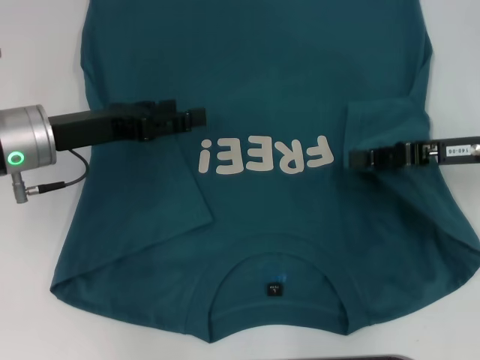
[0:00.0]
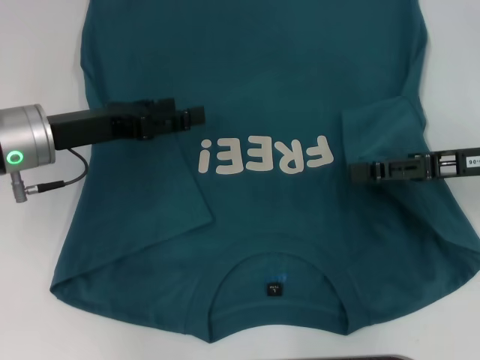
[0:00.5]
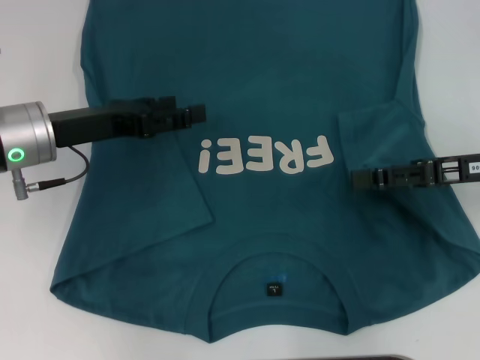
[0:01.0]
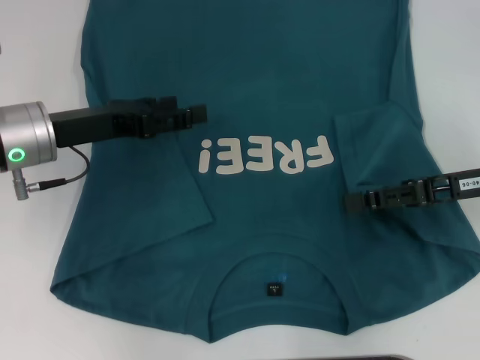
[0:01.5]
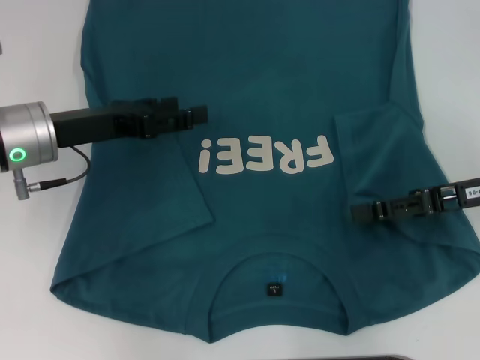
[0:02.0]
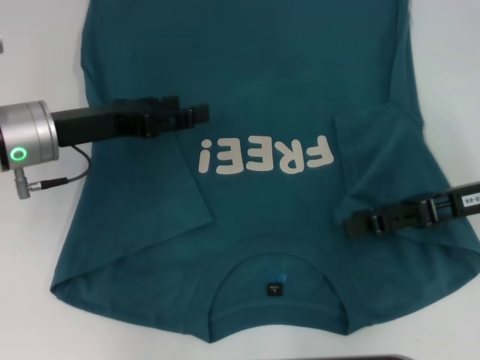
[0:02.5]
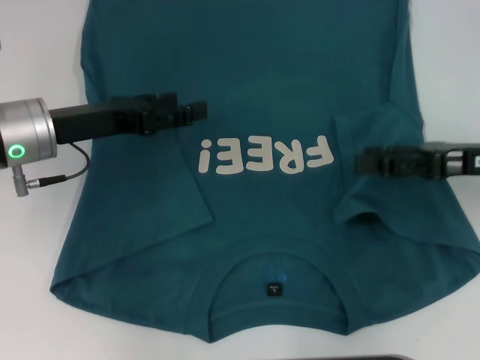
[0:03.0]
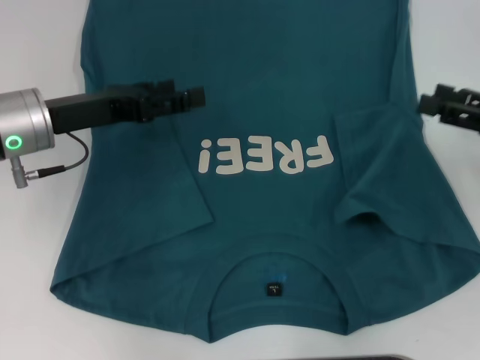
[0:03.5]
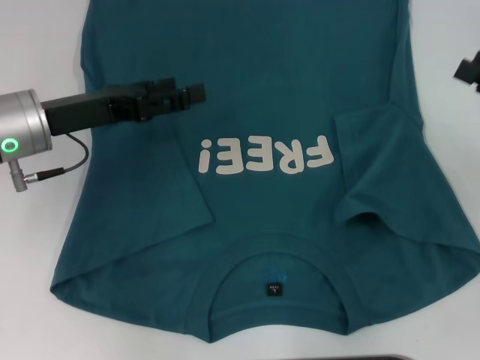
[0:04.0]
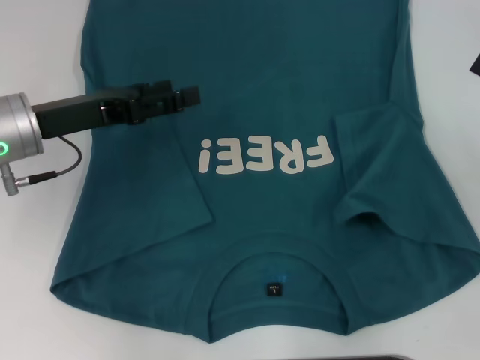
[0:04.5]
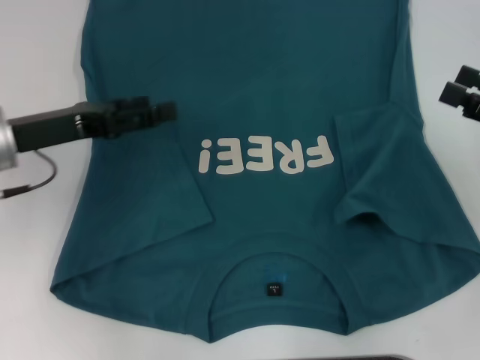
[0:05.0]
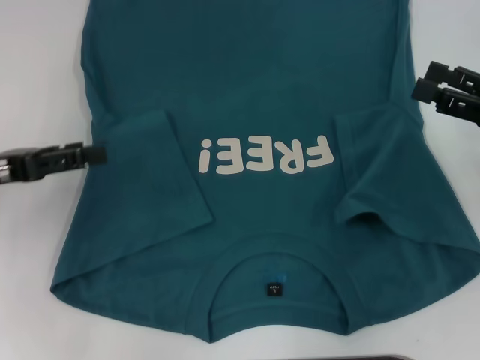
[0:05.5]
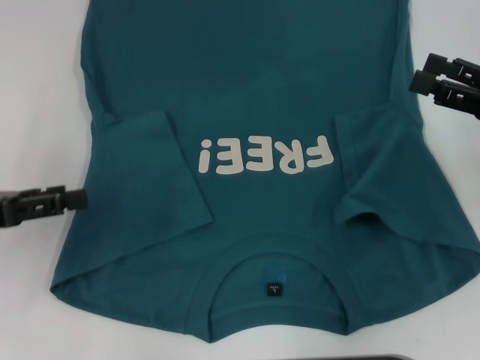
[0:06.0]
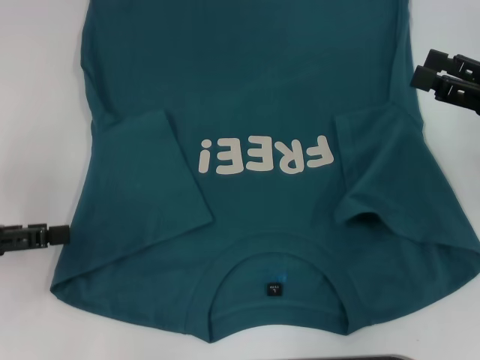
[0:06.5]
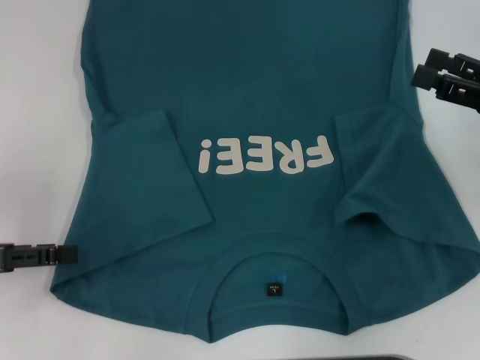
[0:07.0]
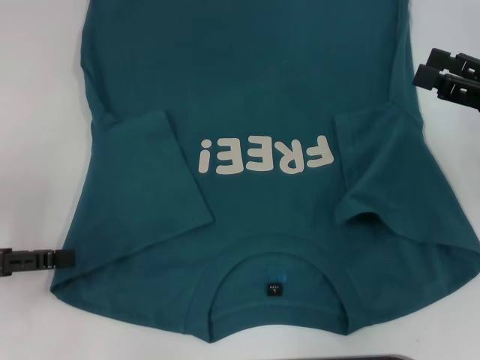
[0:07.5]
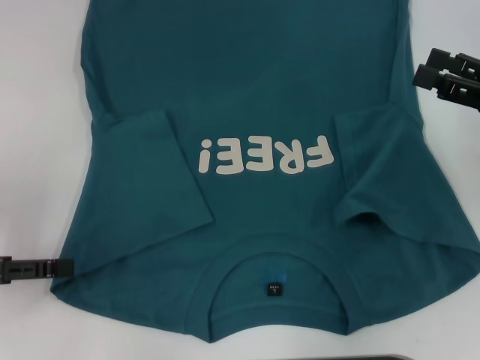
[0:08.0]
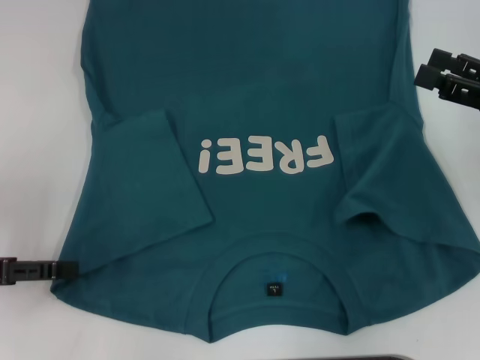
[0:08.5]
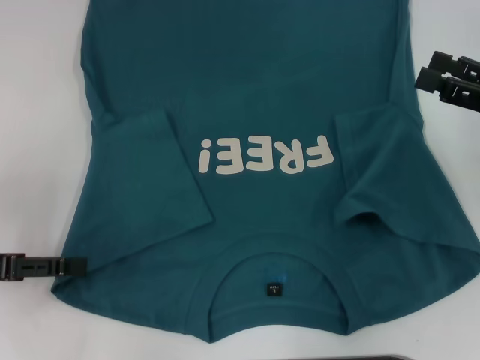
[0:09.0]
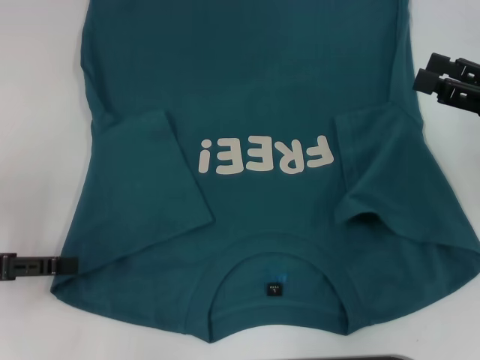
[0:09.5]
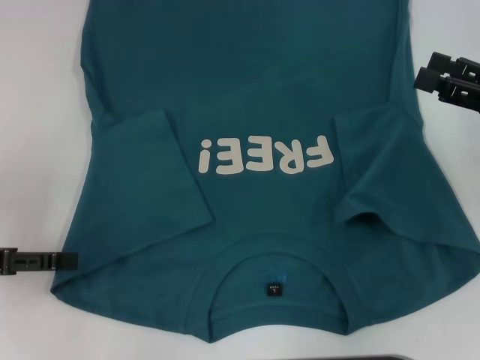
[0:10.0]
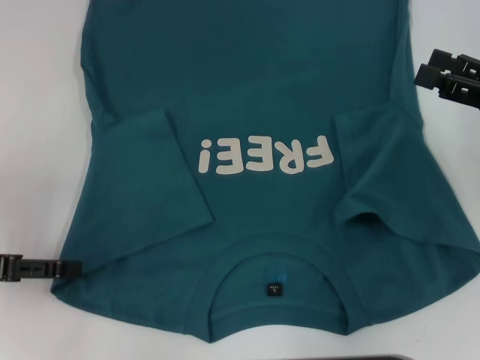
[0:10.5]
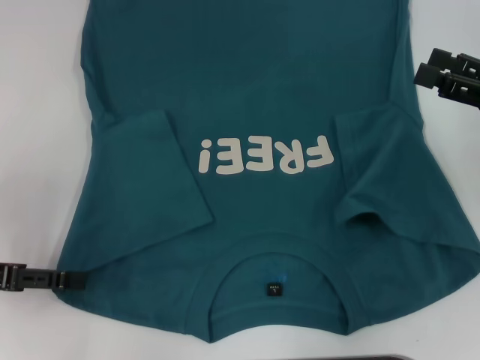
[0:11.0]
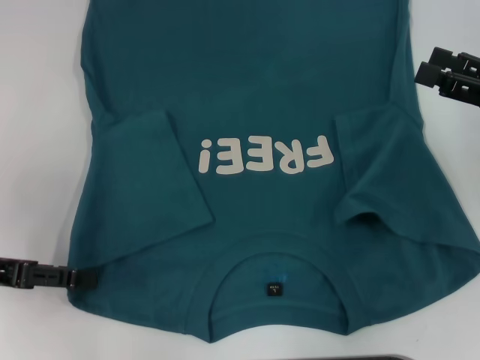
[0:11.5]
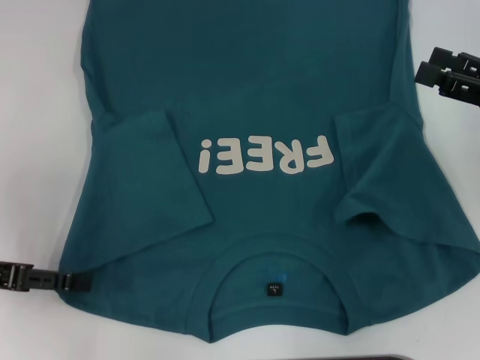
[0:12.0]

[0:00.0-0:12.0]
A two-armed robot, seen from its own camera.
Step, 0:00.0 to 0:02.5: Fold the bottom right sleeve to the right.
0:00.0 to 0:02.0: The right gripper opens.
0:02.0 to 0:04.0: The right gripper shifts roughly 5 cm to the right.
0:04.0 to 0:06.0: The left gripper goes about 15 cm to the left and backward.
0:06.0 to 0:08.0: The grippers make only small movements.
0:08.0 to 0:10.0: Neither gripper changes place.
0:10.0 to 0:12.0: The grippers make only small movements.

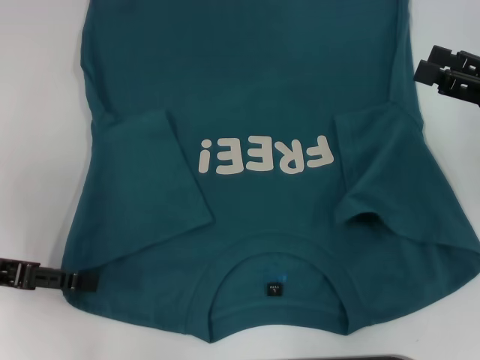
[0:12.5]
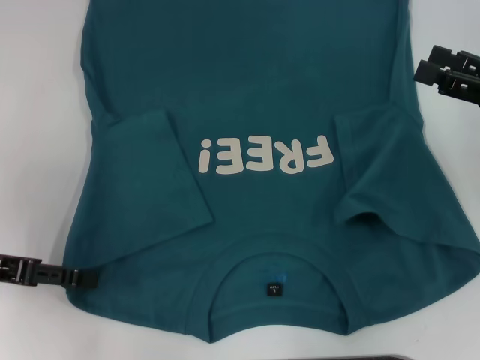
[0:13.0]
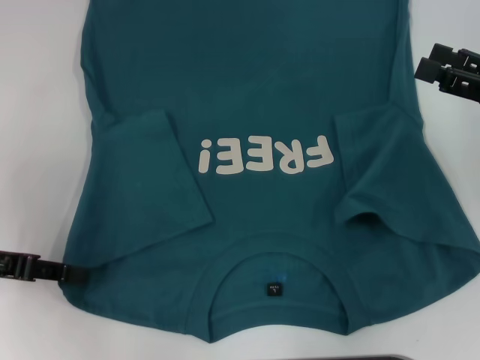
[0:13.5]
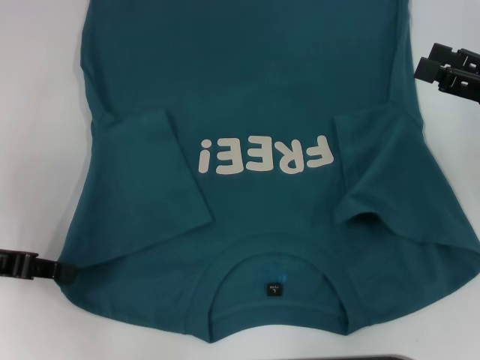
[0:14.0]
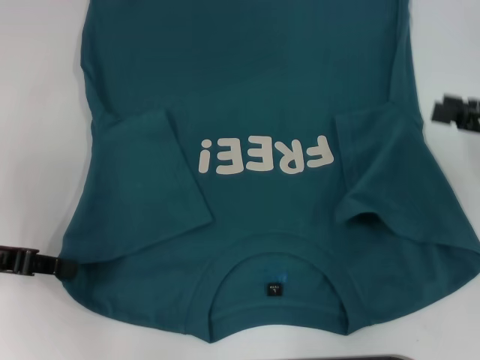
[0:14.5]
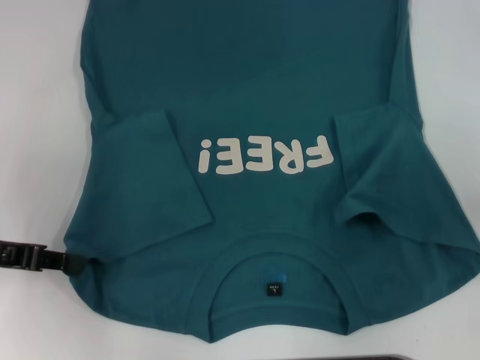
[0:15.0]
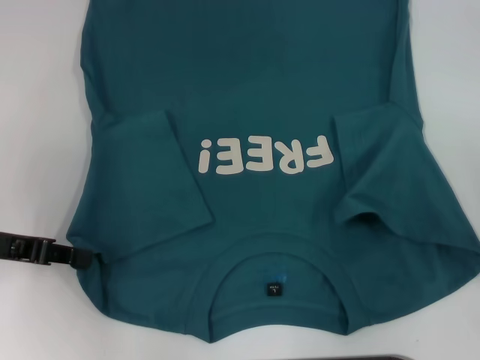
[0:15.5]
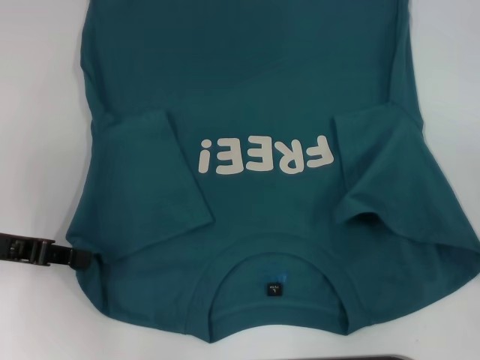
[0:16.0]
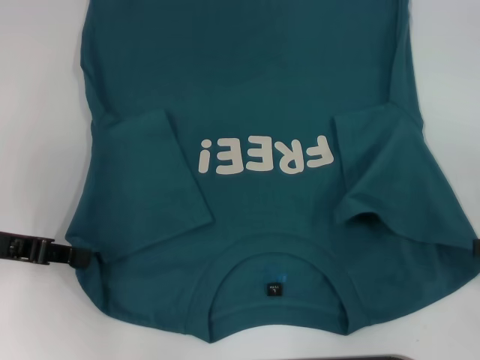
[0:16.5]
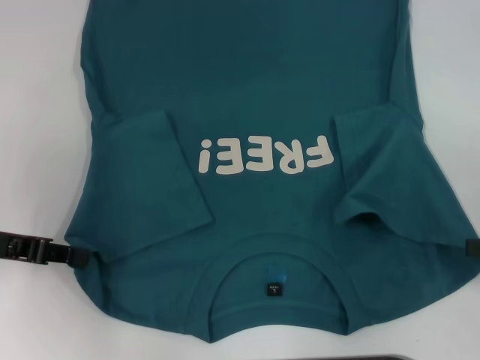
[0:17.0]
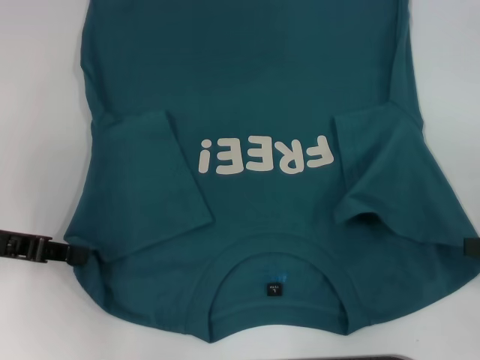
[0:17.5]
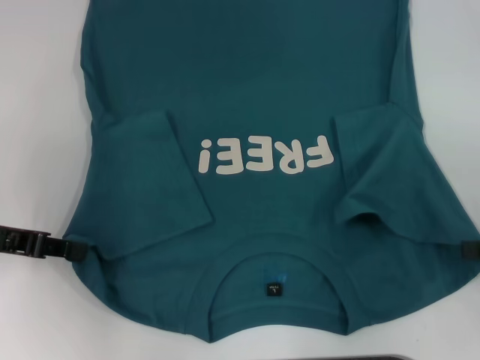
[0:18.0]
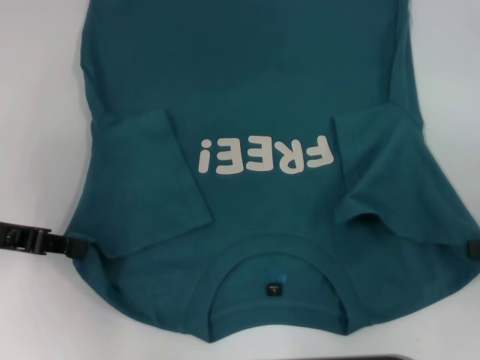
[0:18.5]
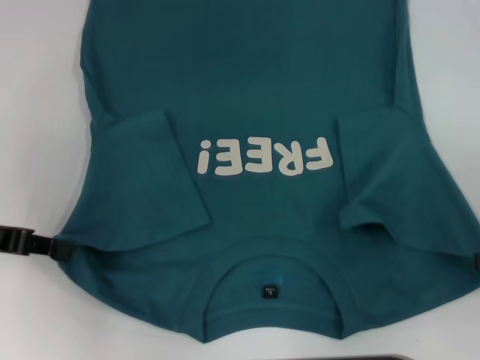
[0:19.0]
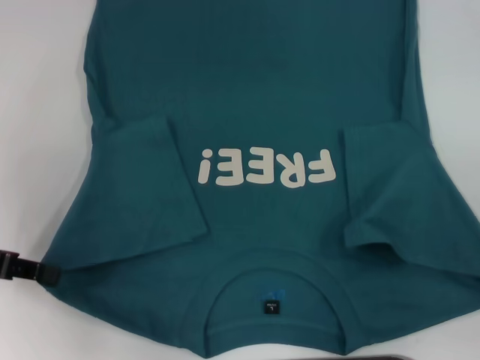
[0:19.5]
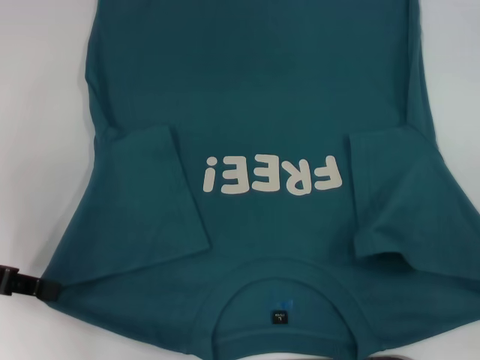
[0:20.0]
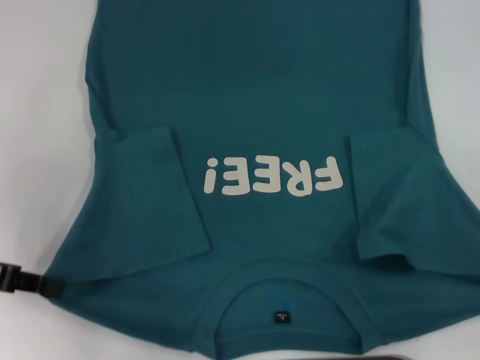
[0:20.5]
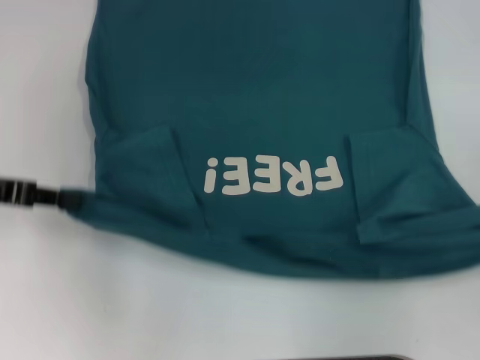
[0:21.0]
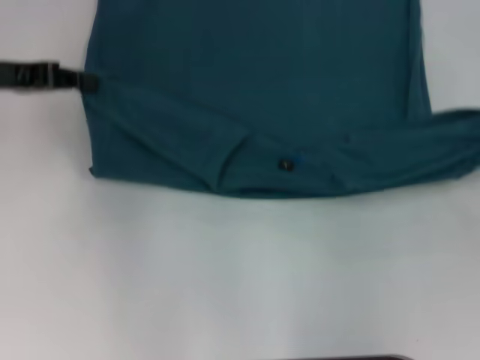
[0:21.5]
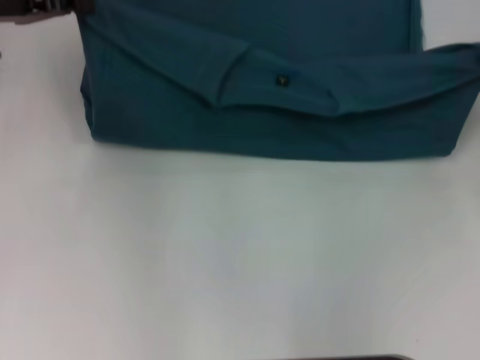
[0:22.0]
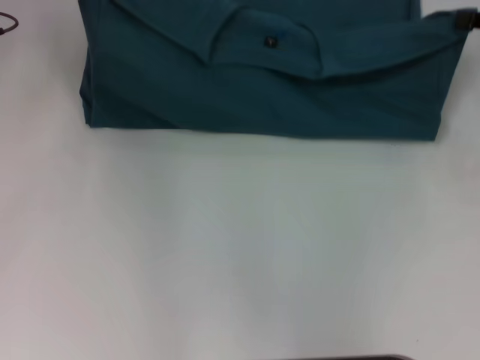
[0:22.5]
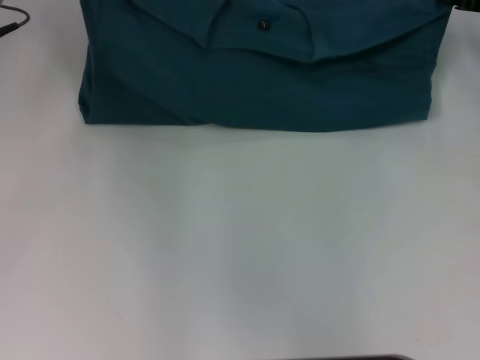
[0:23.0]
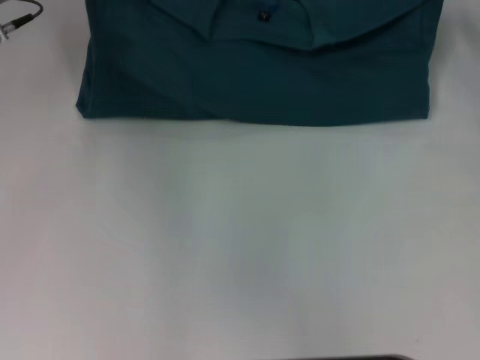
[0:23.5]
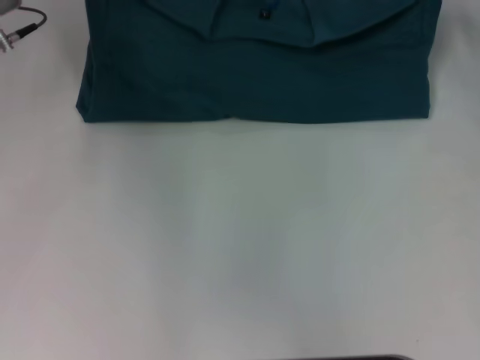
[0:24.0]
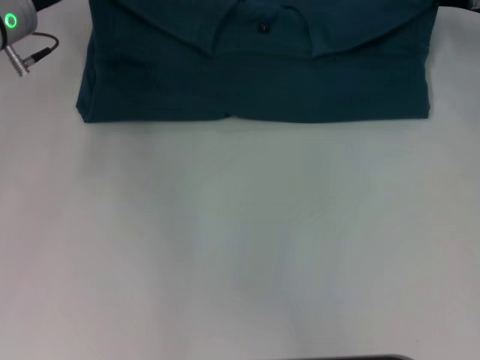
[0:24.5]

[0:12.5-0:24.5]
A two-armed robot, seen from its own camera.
Step, 0:14.5 to 0:20.0: Grab the bottom right corner with your right hand.
0:12.5 to 0:14.5: The left gripper closes up.
0:14.5 to 0:16.5: The right gripper moves backward, roughly 5 cm.
0:18.5 to 0:20.5: The right gripper is displaced backward by about 5 cm.
0:20.5 to 0:22.5: Both grippers travel together forward, approximately 20 cm.
0:22.5 to 0:24.5: The right gripper moves forward and to the left, about 10 cm, while the left gripper ends up roughly 5 cm from where it was.

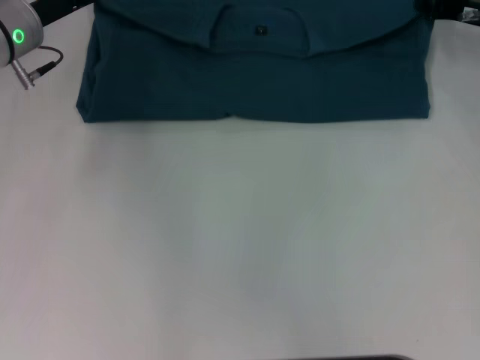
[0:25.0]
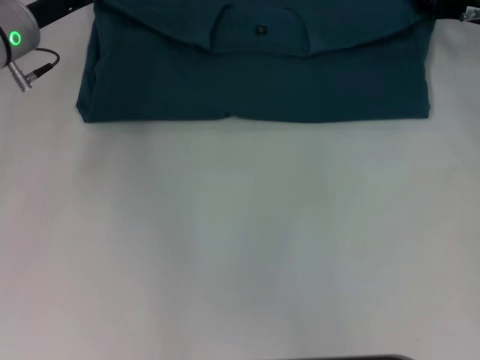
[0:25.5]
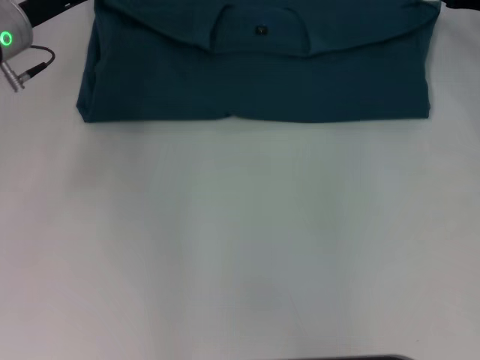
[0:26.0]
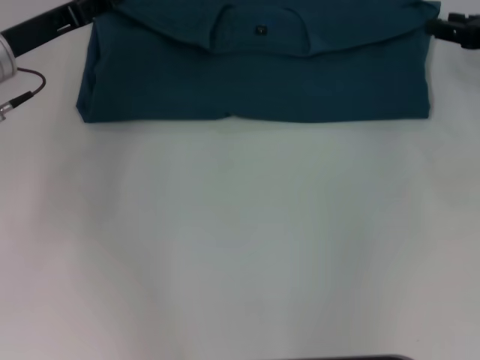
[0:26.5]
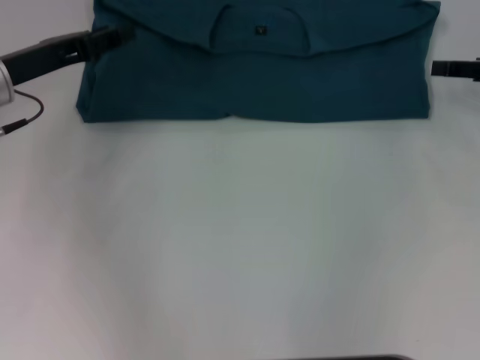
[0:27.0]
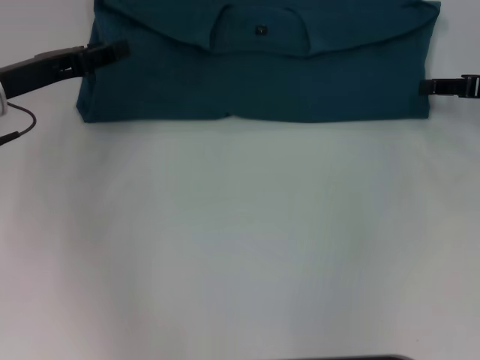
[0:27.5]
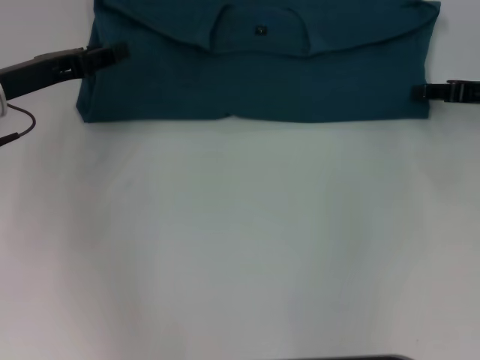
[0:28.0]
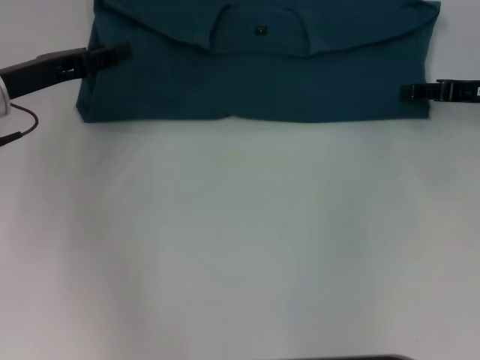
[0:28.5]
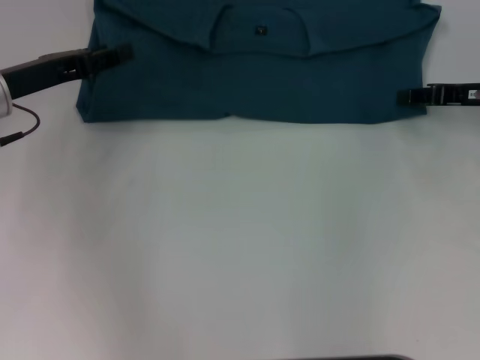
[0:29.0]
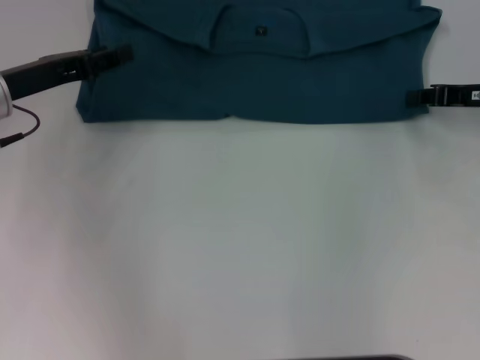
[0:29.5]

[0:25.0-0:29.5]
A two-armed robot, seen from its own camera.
0:25.0 to 0:27.0: The left gripper is displaced backward by approximately 5 cm, and opens up, while the right gripper travels backward and to the right by about 10 cm, and opens.
0:27.0 to 0:29.5: The right gripper closes.
